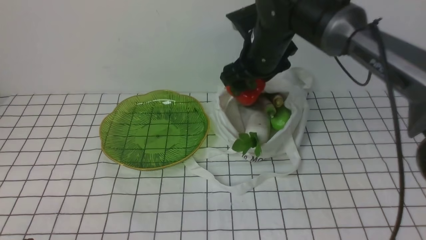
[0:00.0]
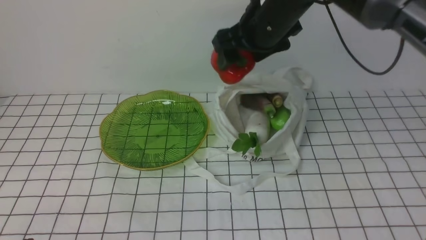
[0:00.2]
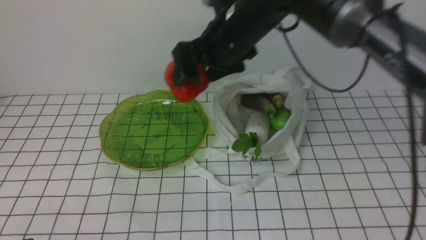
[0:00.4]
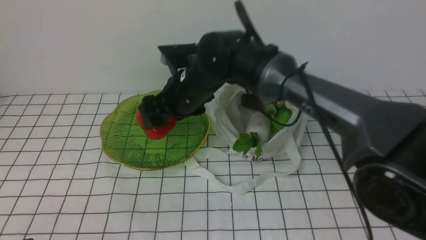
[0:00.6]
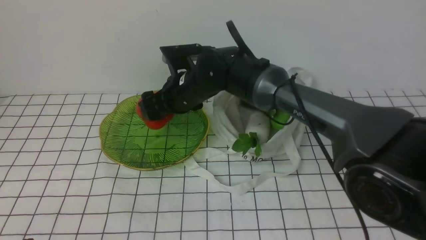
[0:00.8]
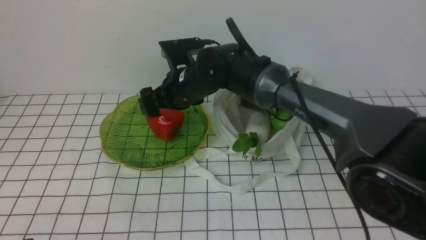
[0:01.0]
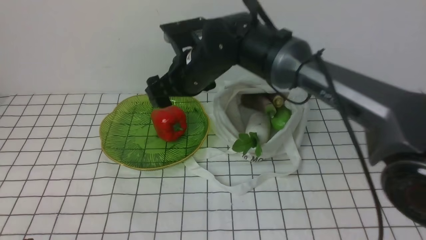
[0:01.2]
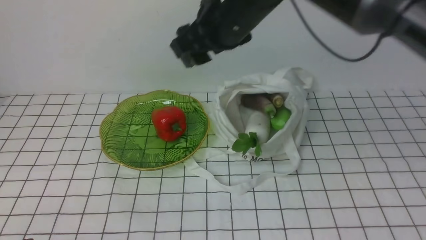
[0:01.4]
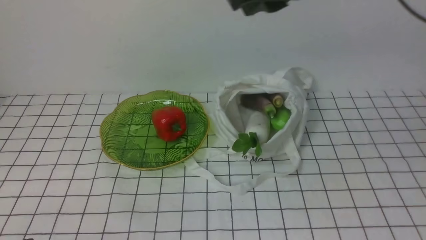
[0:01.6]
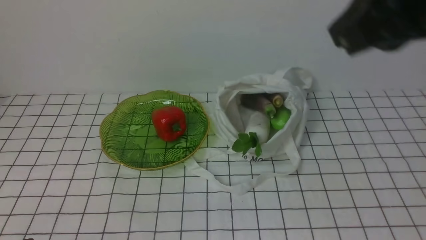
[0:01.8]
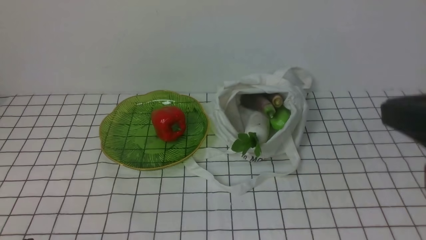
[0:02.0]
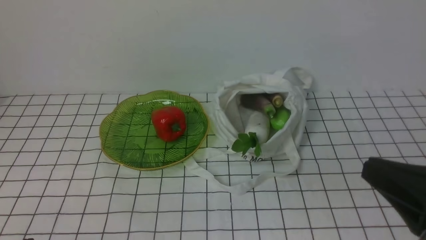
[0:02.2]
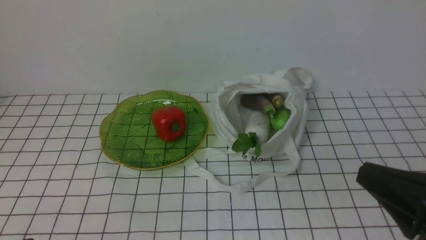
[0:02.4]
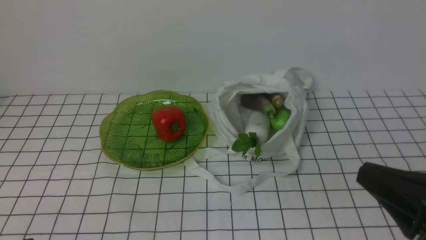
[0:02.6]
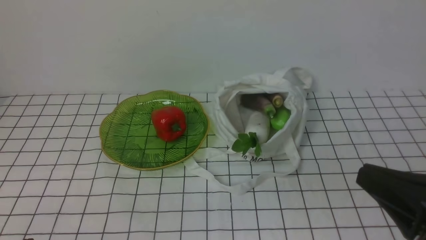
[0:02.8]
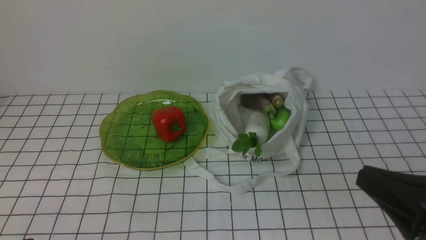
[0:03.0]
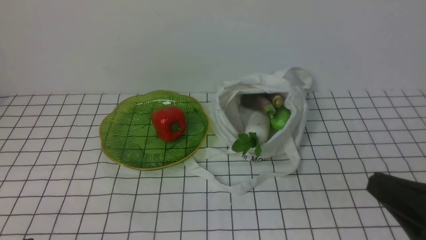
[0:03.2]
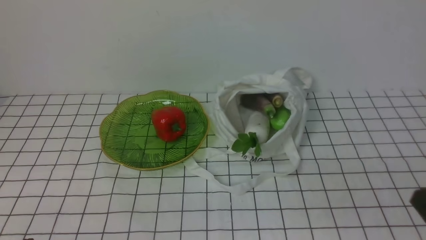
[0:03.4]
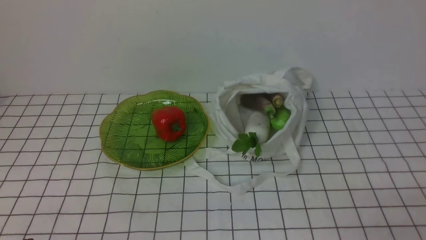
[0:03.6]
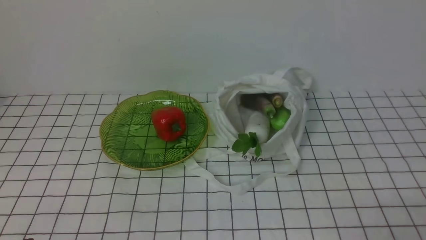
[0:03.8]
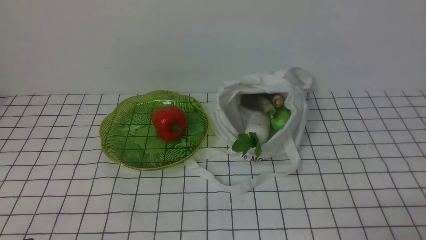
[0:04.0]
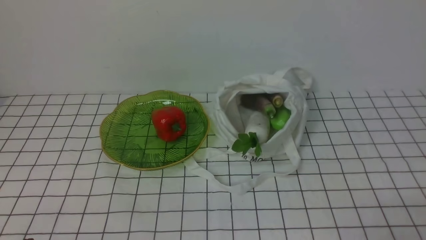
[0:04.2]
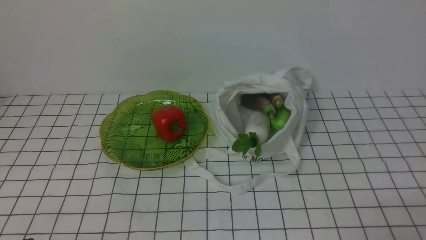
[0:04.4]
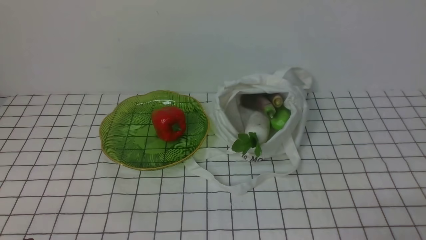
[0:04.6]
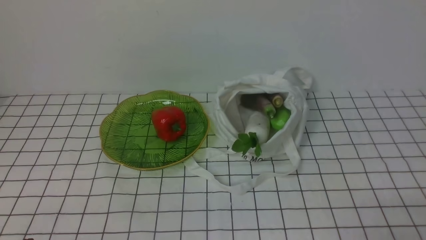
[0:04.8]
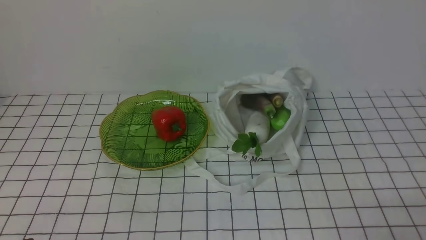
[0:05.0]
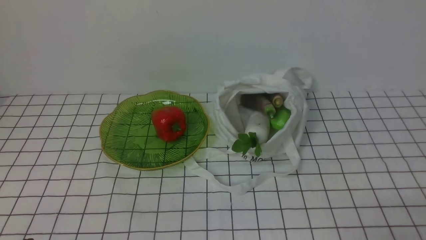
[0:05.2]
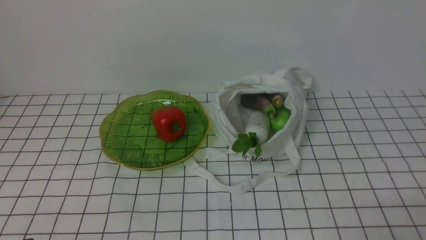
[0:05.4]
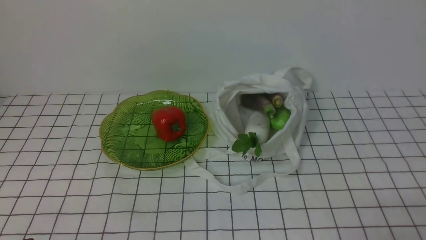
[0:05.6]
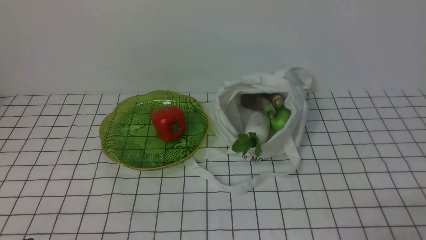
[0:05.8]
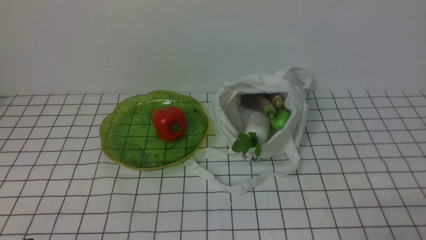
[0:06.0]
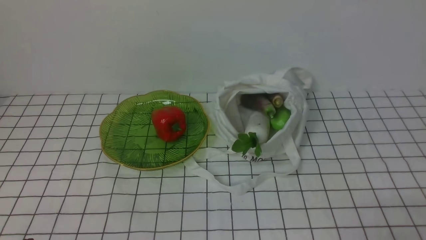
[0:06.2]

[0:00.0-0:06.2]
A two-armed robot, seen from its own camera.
Task of the whole recording: take vegetables from bag on white checkered tablecloth place on plate.
Step, 0:00.0 to 0:01.2: Place the bell pepper on the plate with right gripper.
0:00.0 to 0:01.6: The right gripper is displaced upward and backward by approximately 20 cm, and closes.
0:01.6 to 0:03.2: The right gripper is displaced downward, backward and to the right by approximately 30 cm.
0:03.2 to 0:04.6: The right gripper is displaced downward by approximately 10 cm.
0:04.6 to 0:06.2: Both grippers stay about where they are.
